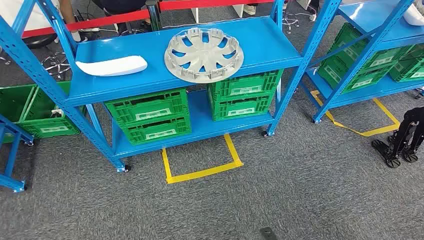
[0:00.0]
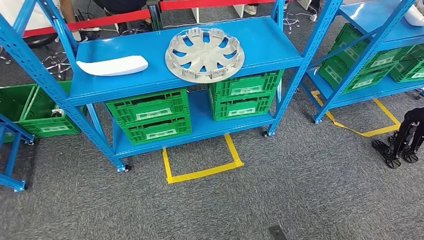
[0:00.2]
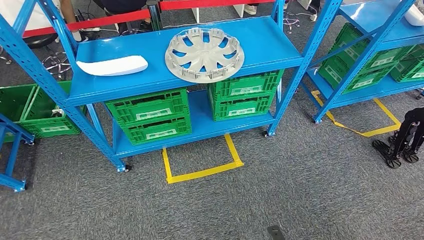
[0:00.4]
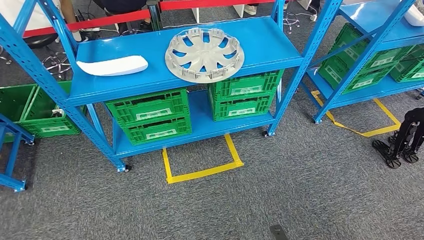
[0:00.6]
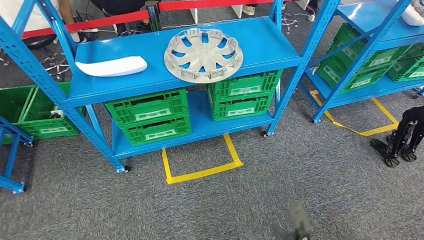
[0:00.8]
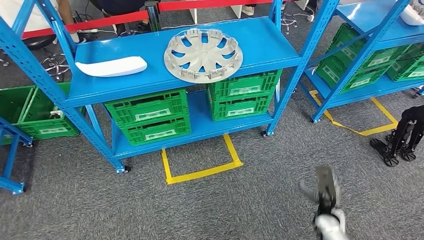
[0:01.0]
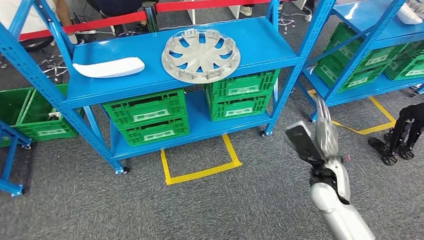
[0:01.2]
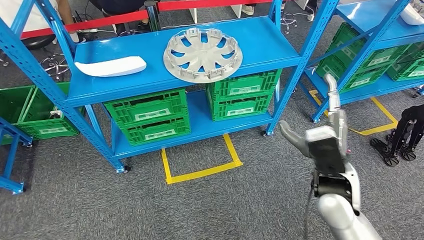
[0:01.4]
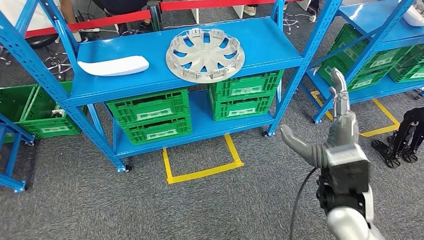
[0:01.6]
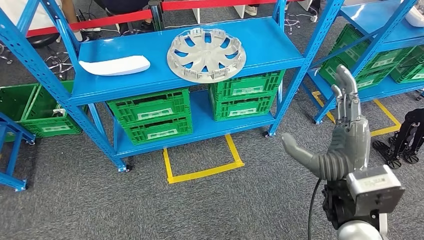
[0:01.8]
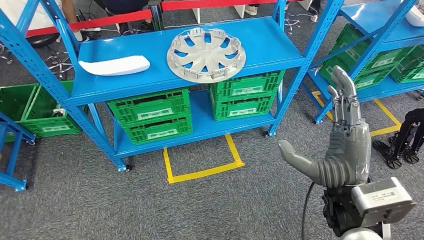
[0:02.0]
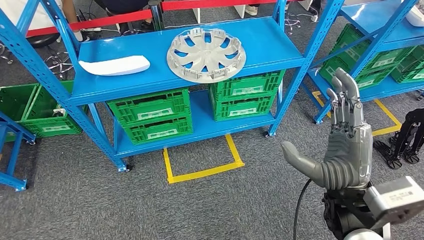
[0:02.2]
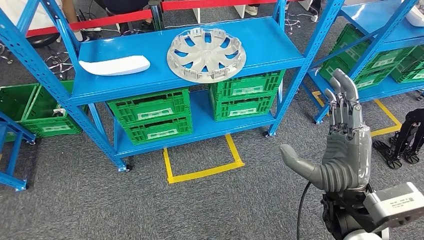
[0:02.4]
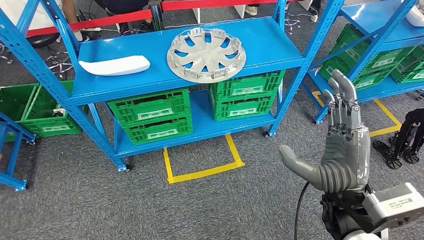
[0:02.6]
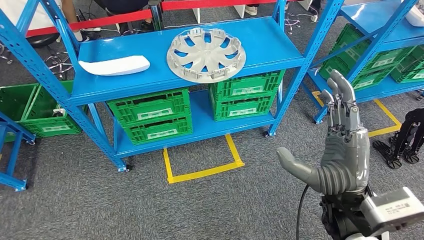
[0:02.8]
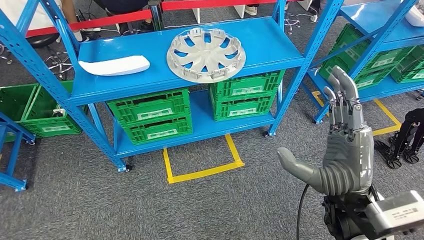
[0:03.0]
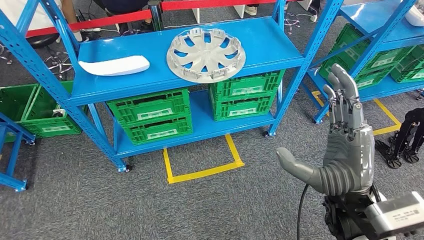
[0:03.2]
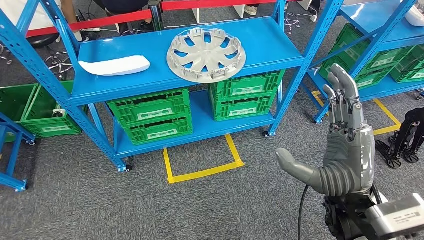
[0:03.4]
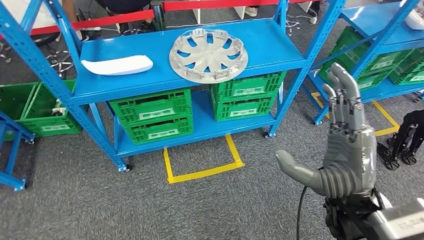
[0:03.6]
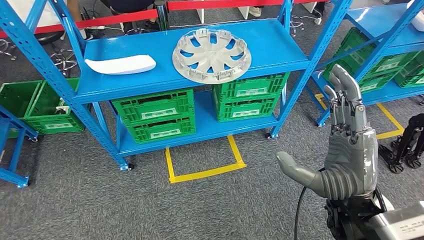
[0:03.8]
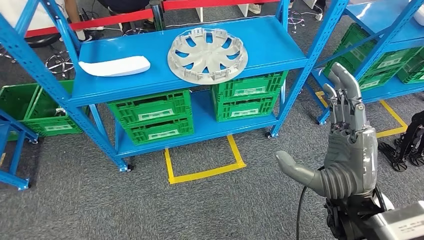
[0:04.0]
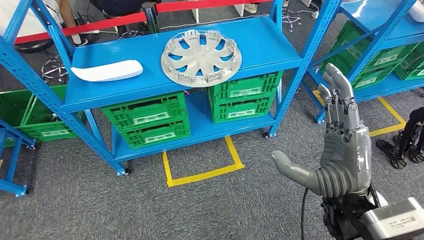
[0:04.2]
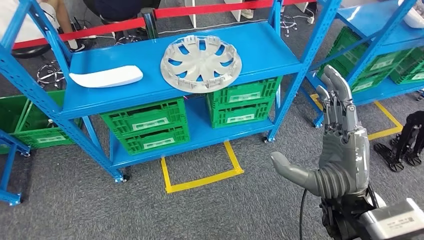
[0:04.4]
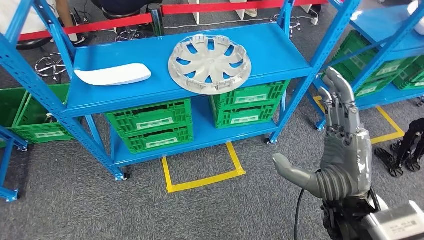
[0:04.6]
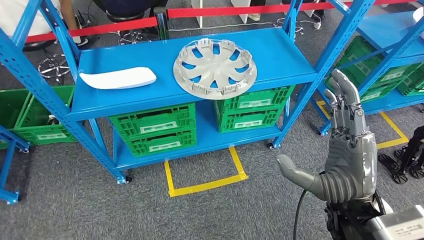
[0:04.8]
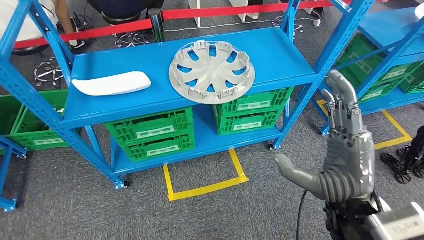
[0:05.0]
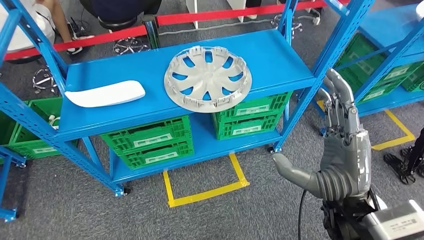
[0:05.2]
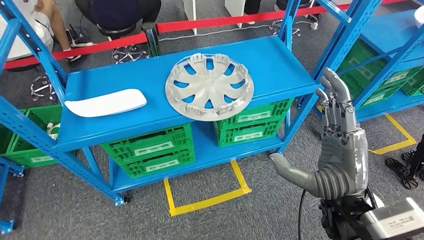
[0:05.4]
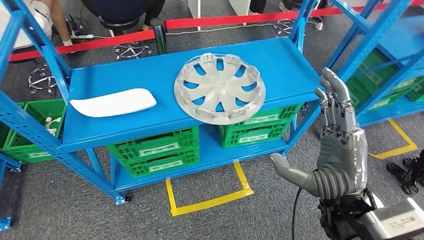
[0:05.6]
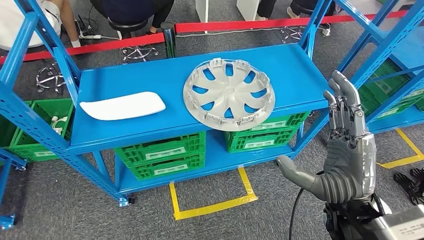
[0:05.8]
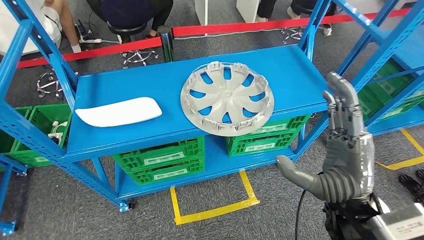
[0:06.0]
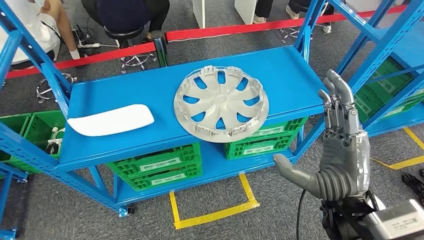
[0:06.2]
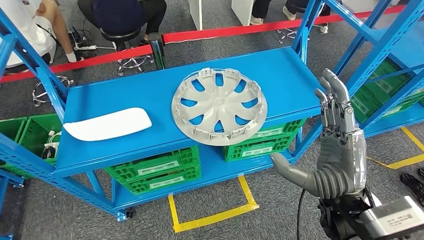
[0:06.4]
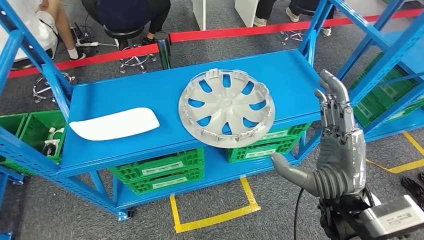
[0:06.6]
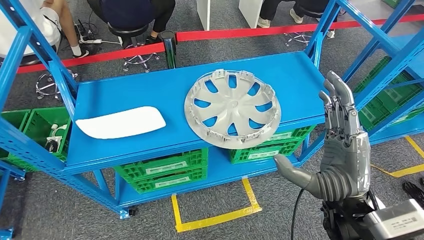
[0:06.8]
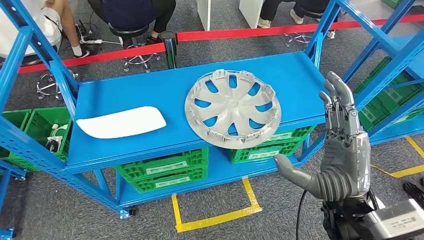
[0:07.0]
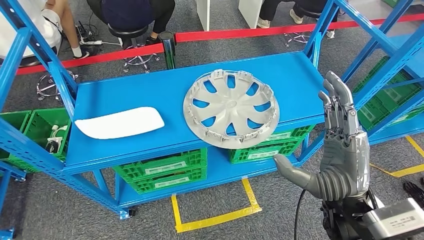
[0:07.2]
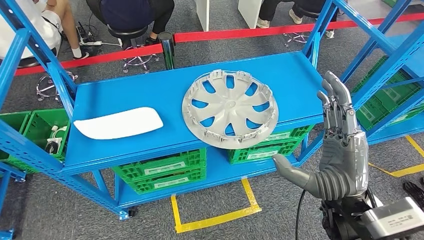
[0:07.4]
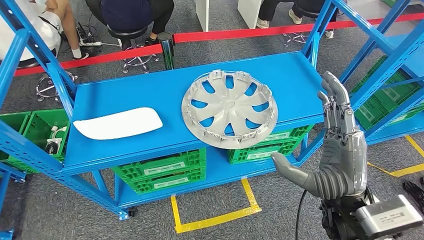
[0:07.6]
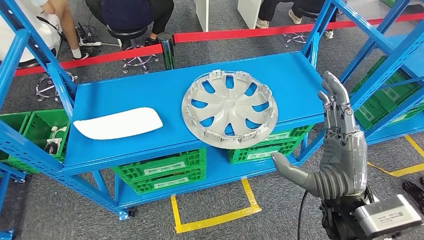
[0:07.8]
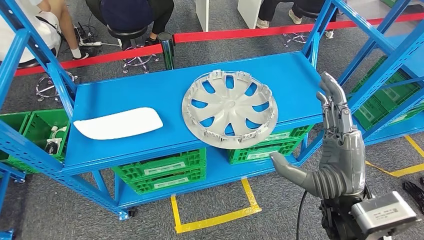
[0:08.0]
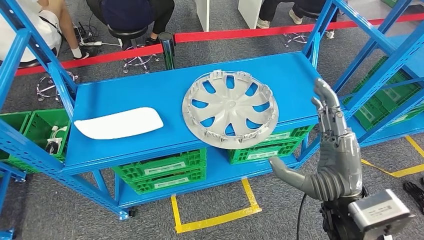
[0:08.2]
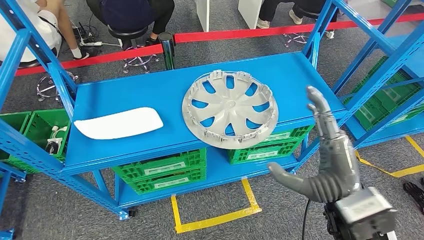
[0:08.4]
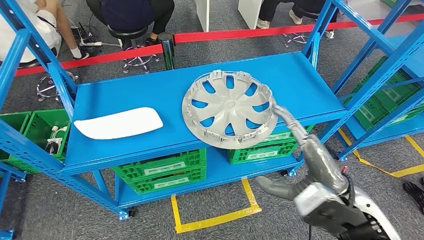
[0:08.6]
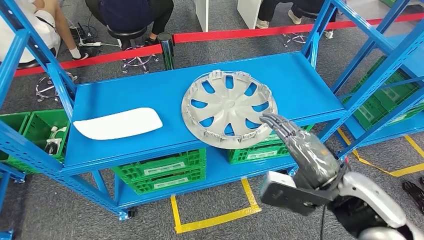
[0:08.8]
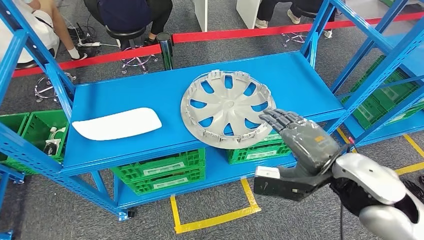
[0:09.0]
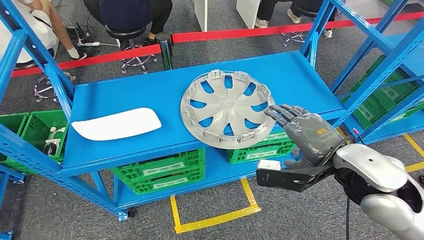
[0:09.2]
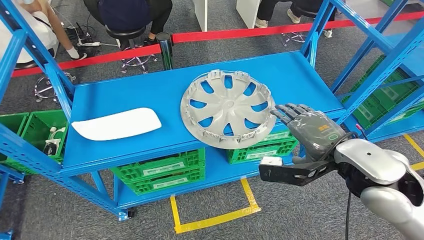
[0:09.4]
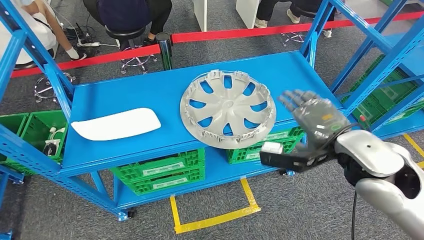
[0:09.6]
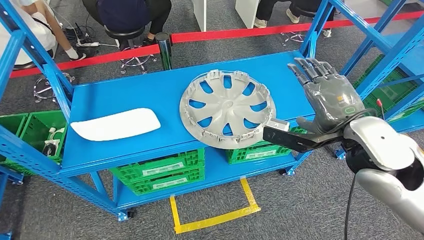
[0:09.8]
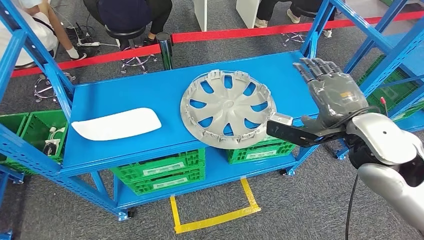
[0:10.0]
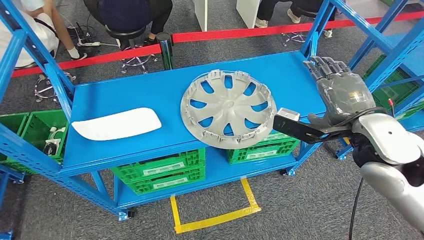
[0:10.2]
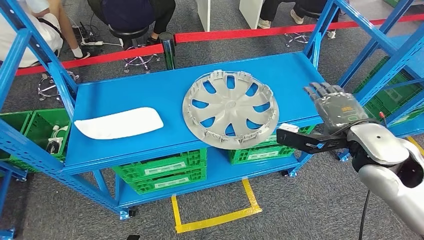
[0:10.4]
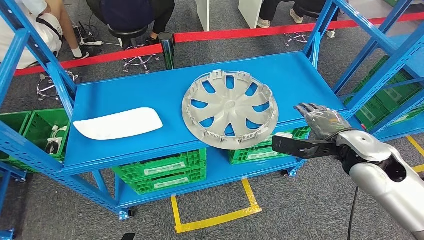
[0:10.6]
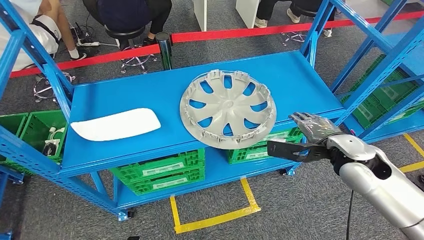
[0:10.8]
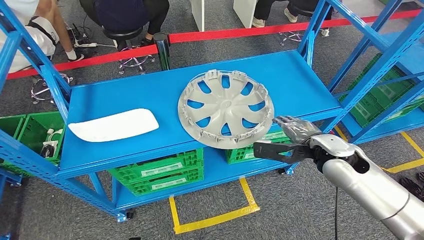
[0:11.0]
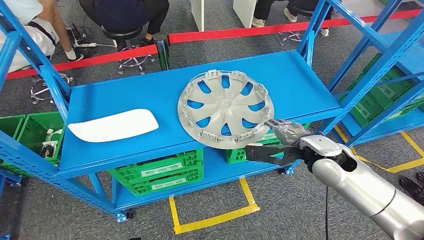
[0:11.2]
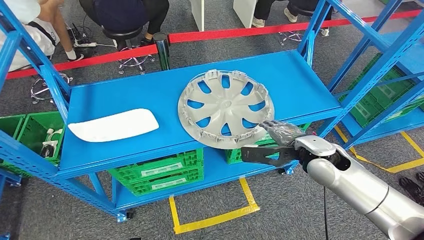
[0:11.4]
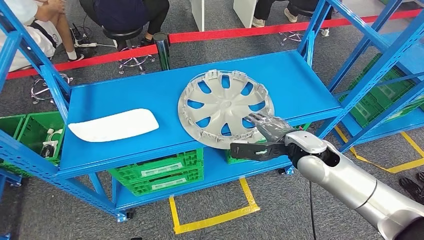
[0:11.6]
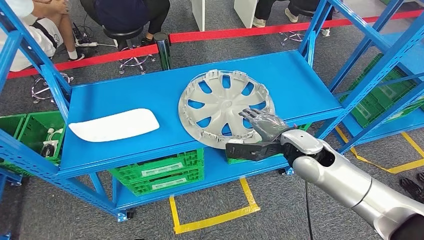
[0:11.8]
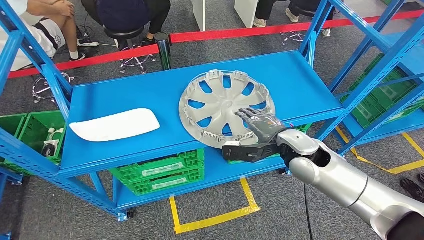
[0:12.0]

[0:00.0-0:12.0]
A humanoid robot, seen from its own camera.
0:01.6 to 0:03.0: The right hand moves about 5 cm.
0:07.6 to 0:09.0: The right hand changes place by approximately 5 cm.

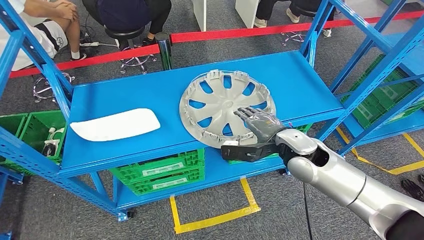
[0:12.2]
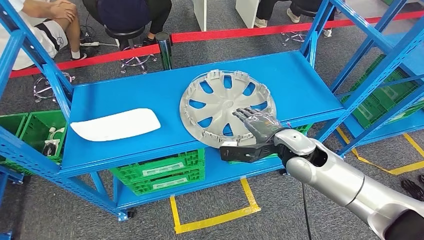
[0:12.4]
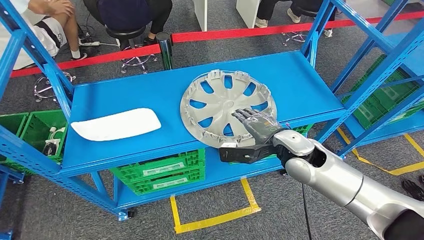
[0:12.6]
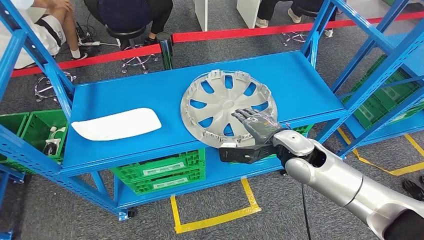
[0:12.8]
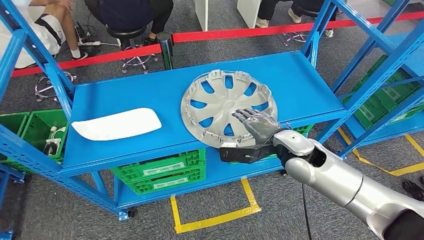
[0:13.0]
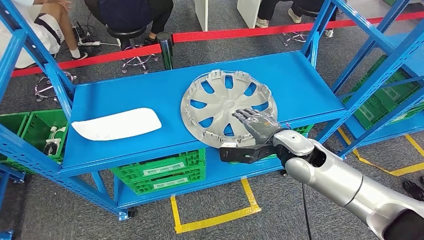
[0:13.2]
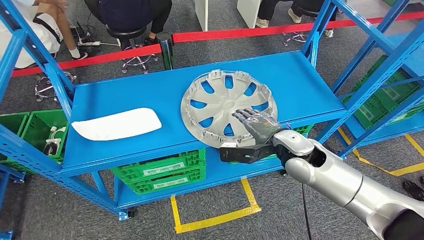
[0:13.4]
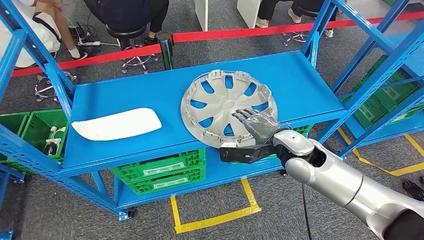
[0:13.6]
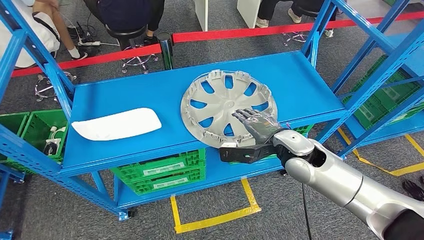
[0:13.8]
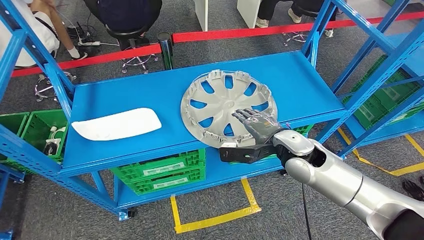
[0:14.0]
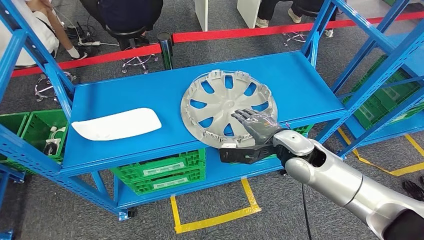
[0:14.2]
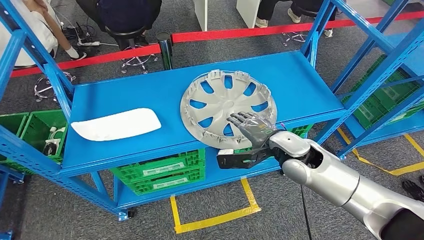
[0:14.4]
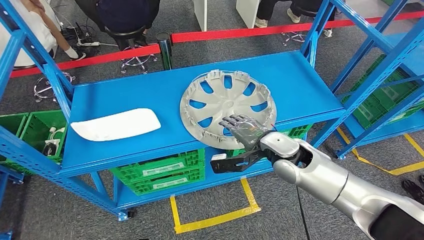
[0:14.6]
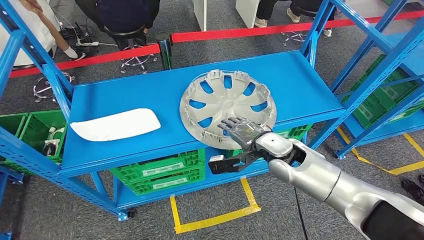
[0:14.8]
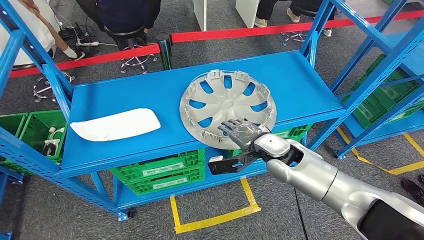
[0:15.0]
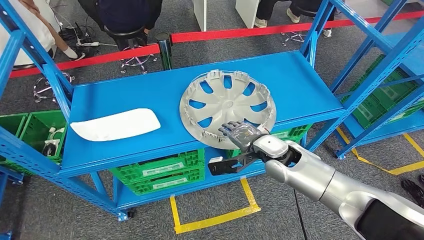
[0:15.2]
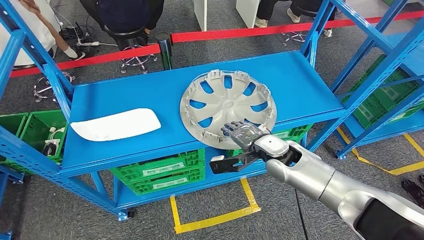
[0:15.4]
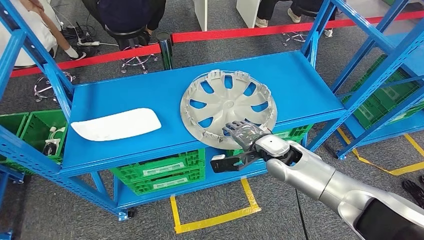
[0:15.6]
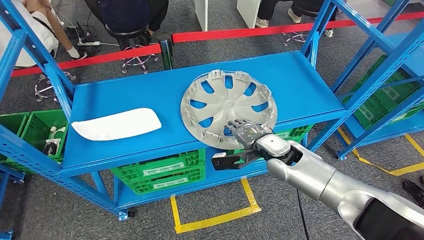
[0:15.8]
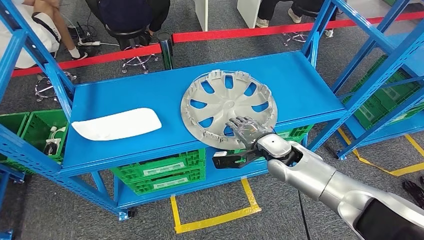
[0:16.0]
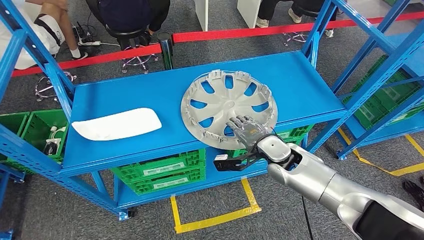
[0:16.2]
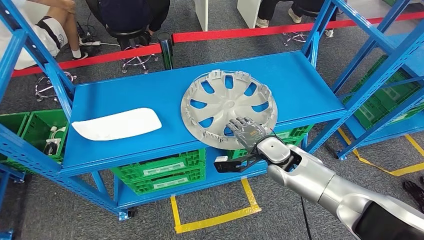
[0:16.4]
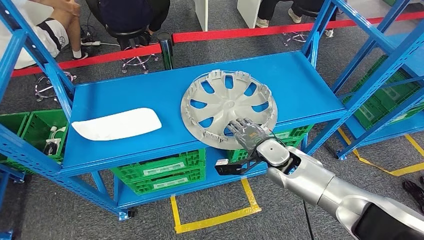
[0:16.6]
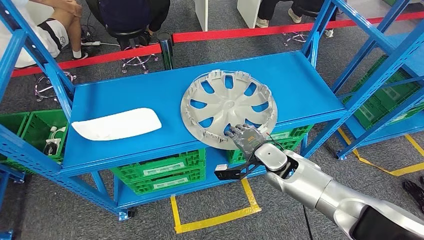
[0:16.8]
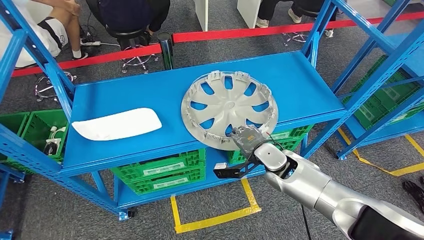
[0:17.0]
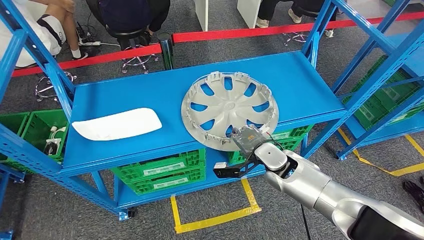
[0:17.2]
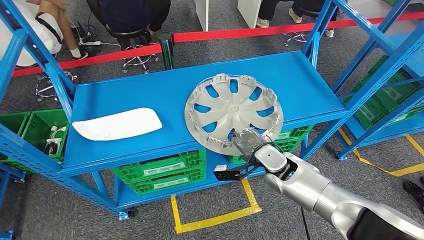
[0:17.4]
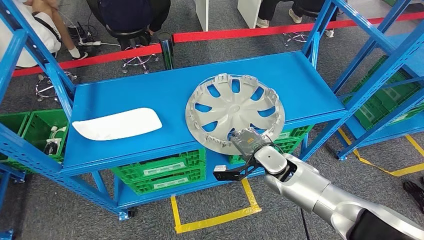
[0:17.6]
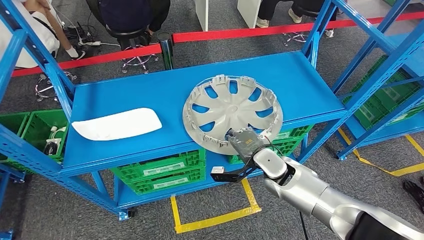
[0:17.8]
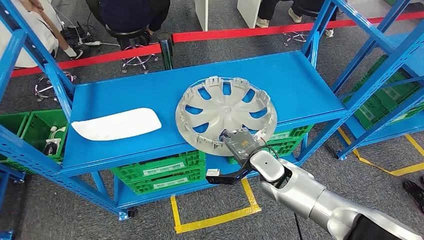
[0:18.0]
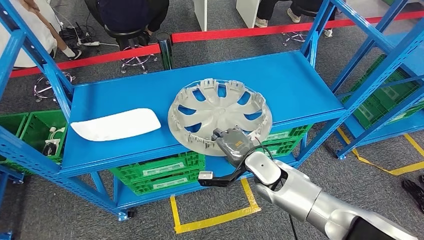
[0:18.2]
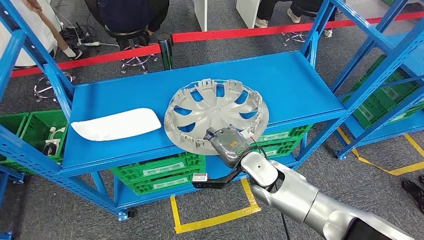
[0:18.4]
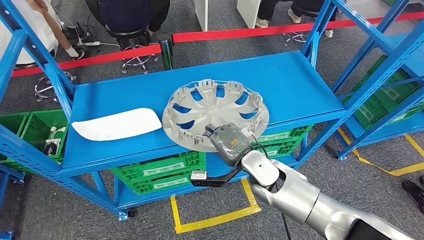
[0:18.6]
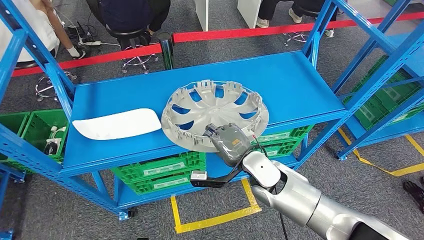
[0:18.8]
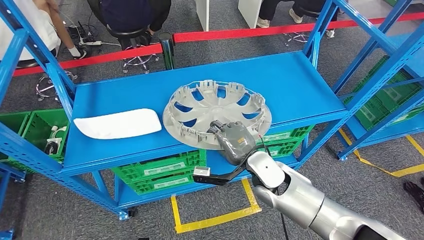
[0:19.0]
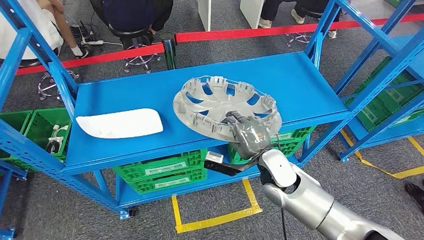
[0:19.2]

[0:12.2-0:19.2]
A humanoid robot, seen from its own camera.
0:12.2 to 0:13.6: The two hands keep their place.
0:13.6 to 0:15.0: The hands make only small movements.
0:15.0 to 0:16.4: The hands stay close to where they were, moving slightly.
0:16.4 to 0:17.8: There are only small adjustments of the hands.
